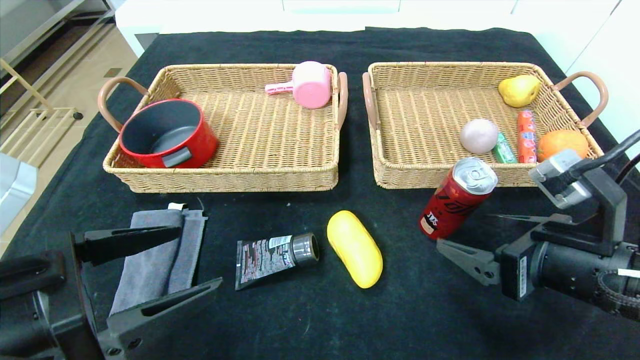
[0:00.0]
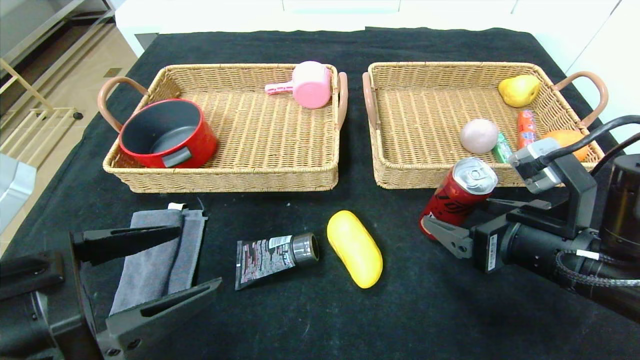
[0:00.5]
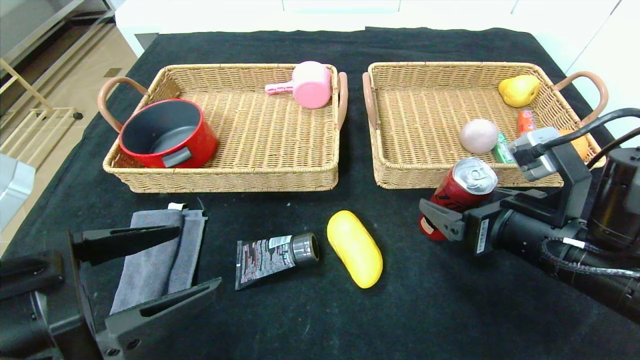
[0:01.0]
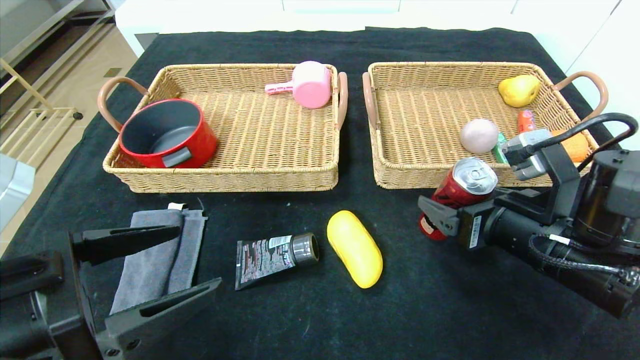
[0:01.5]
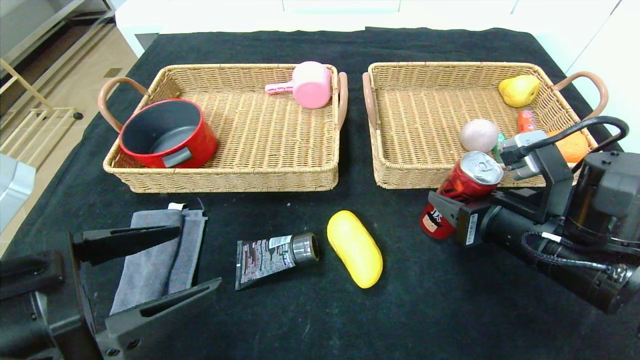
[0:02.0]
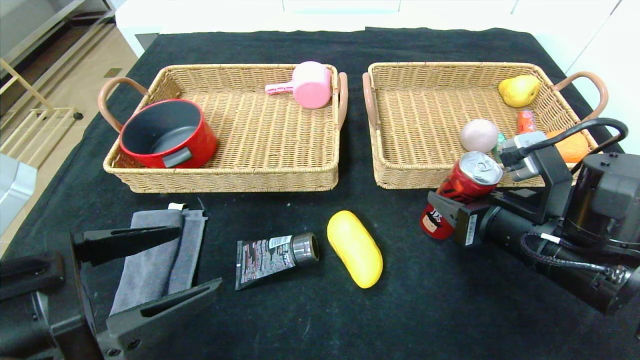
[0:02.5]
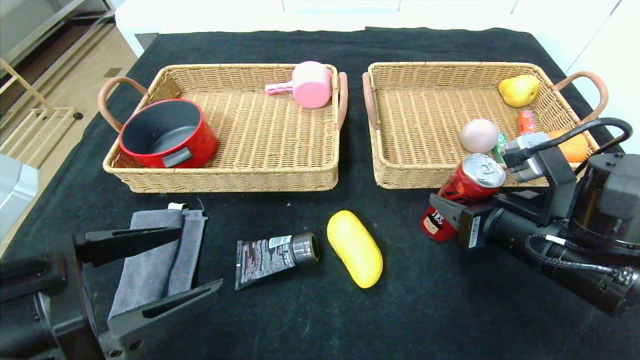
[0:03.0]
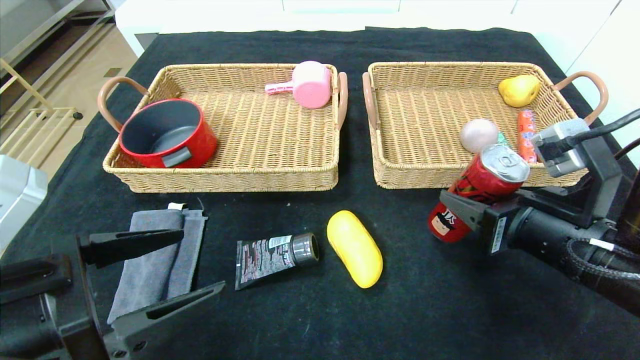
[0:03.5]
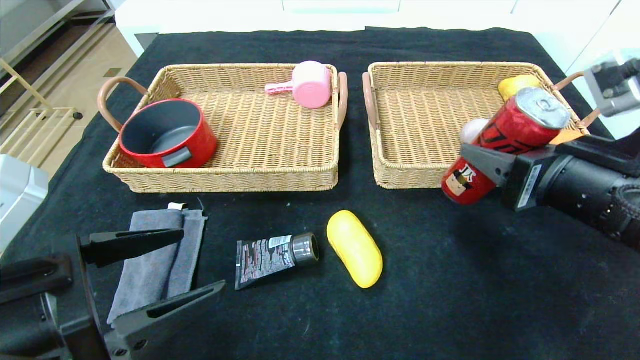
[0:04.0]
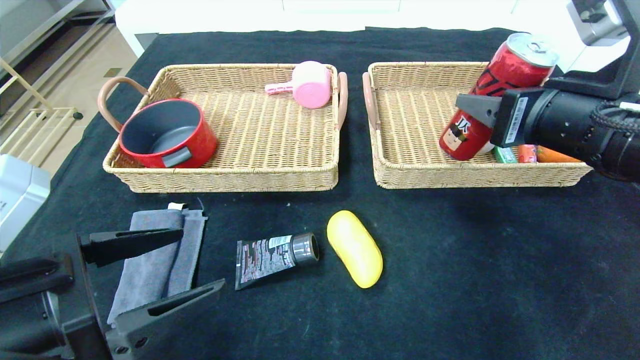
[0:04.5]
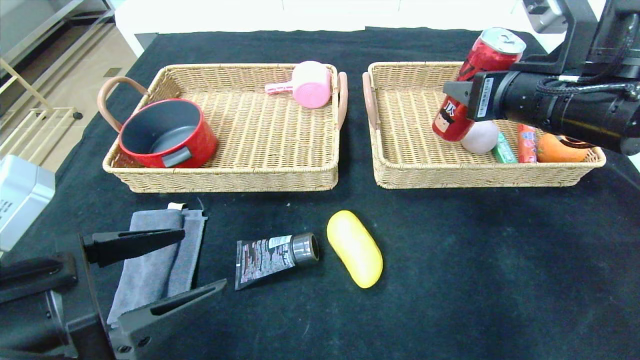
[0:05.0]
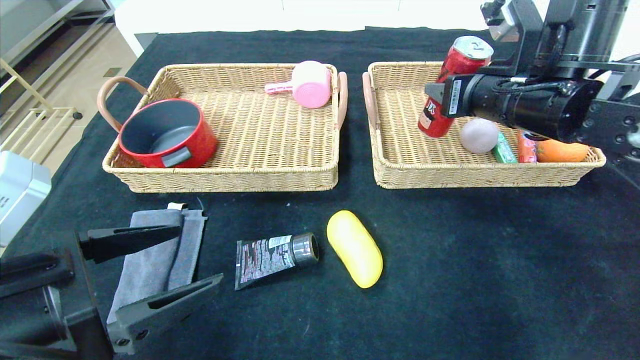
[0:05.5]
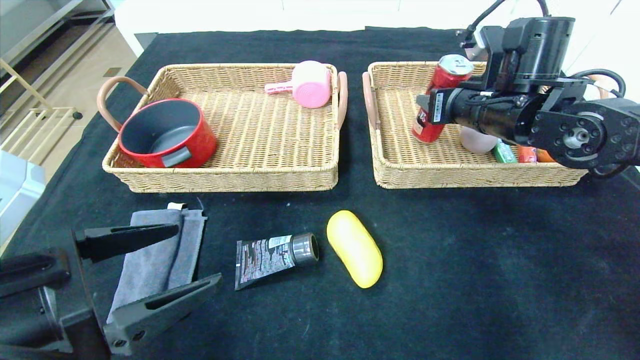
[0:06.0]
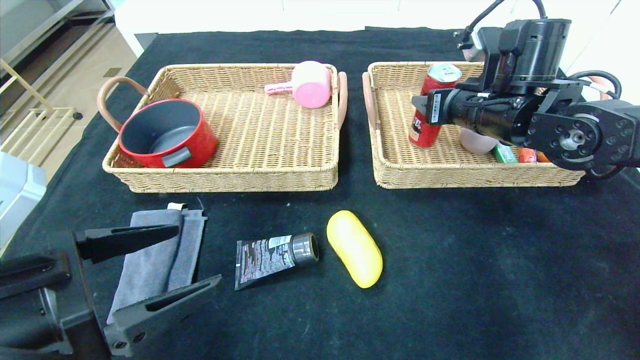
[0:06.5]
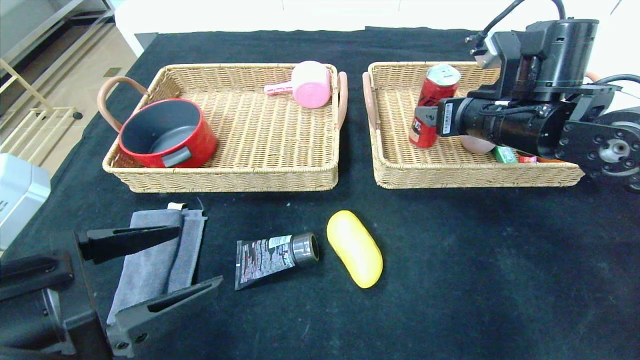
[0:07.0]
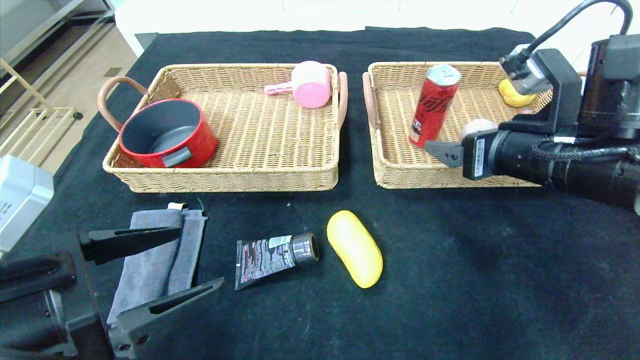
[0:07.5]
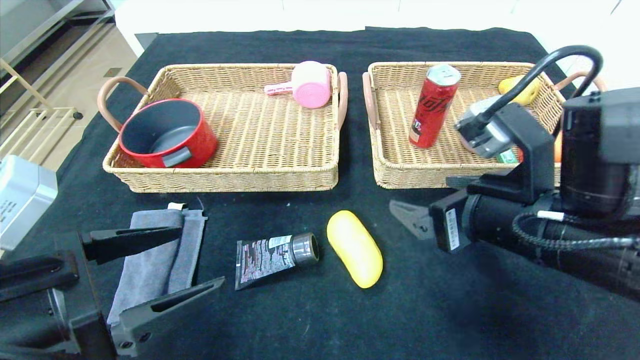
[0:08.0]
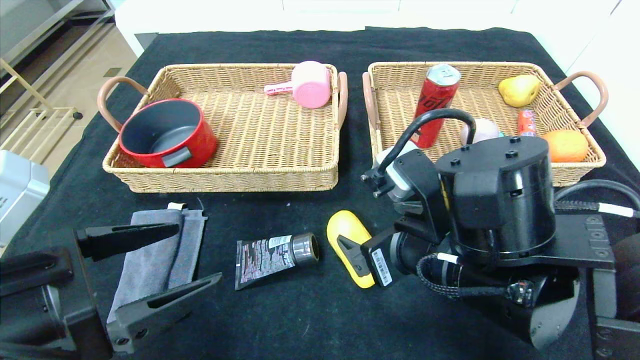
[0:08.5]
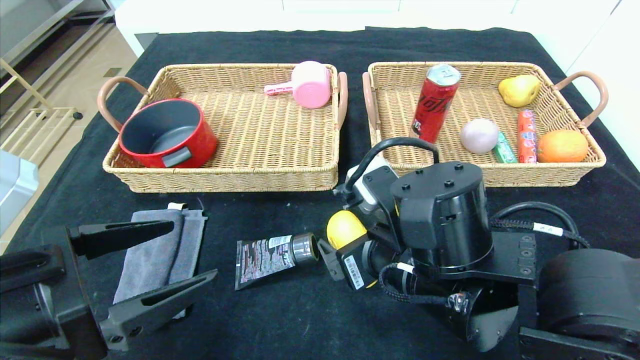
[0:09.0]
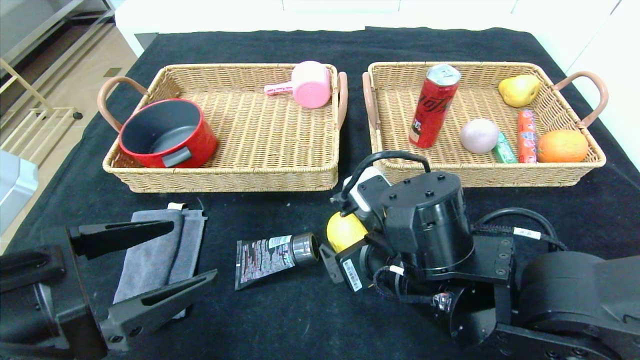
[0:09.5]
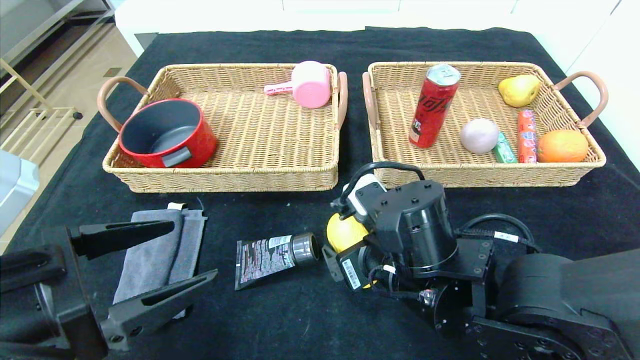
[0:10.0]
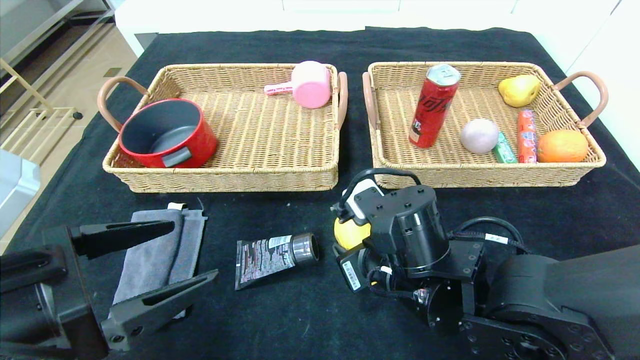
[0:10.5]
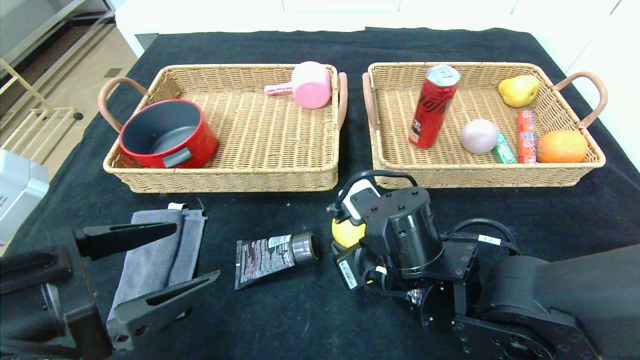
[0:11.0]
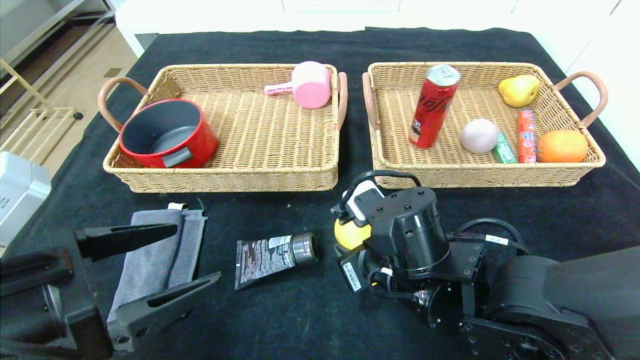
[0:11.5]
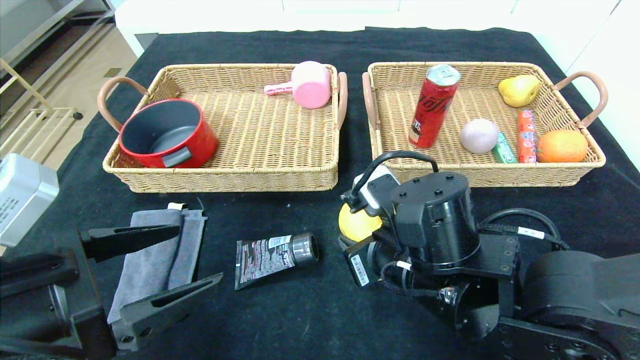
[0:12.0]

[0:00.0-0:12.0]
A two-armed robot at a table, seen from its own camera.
Step, 0:00.0 to 0:07.0: Grasp the canned cola and put it in the right basket.
0:00.0 to 0:02.0: The right gripper shifts by about 5 cm, and closes its fingers.
0:02.0 to 0:04.0: The right gripper heads upward, covering about 5 cm.
0:04.0 to 0:06.0: The right gripper goes some 20 cm forward.
0:06.0 to 0:08.0: The right gripper goes approximately 15 cm backward, and opens.
0:08.0 to 0:10.0: The right gripper is displaced to the left and downward by some 10 cm.
0:10.0 to 0:12.0: The right gripper closes its fingers.

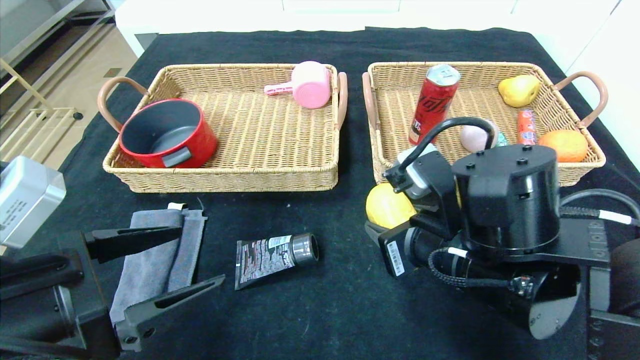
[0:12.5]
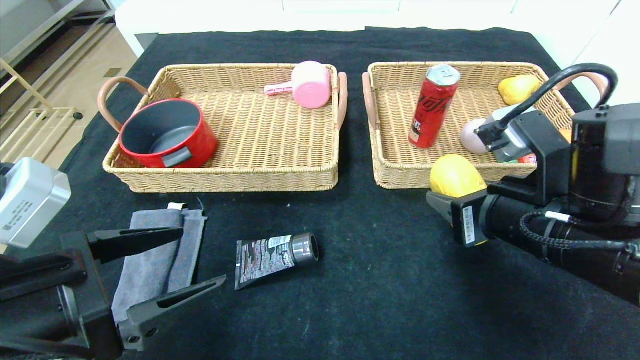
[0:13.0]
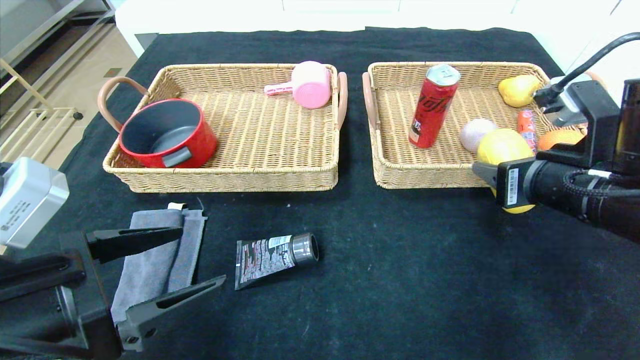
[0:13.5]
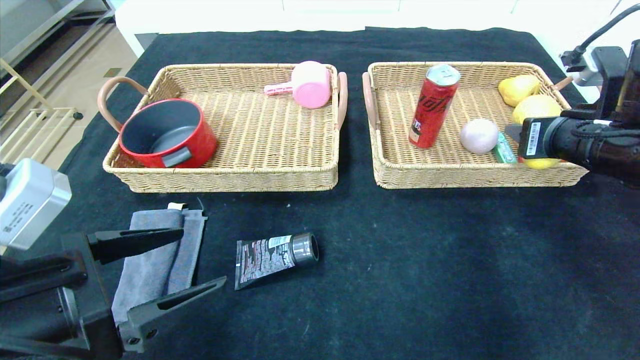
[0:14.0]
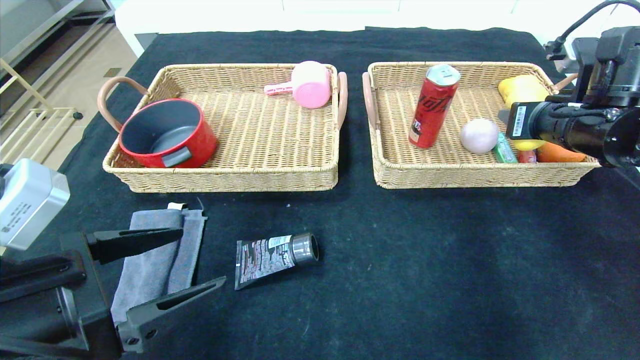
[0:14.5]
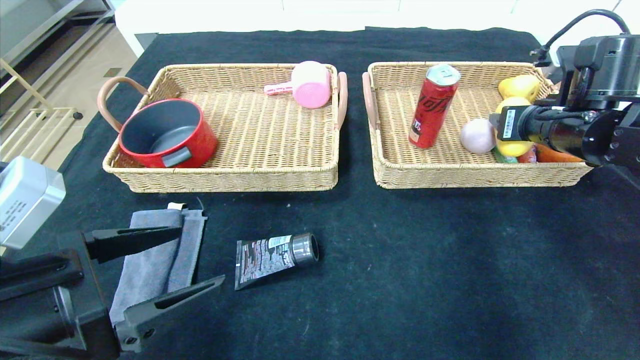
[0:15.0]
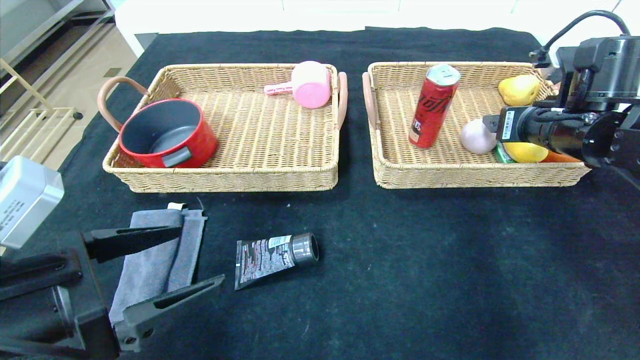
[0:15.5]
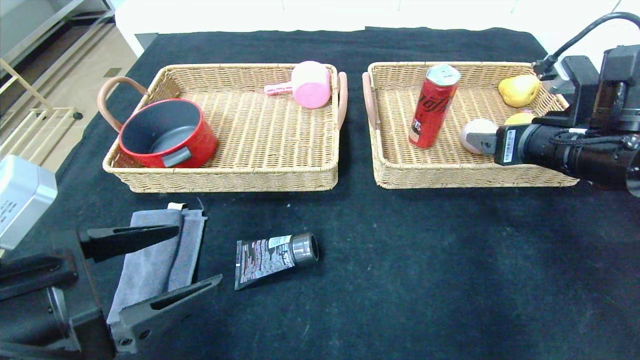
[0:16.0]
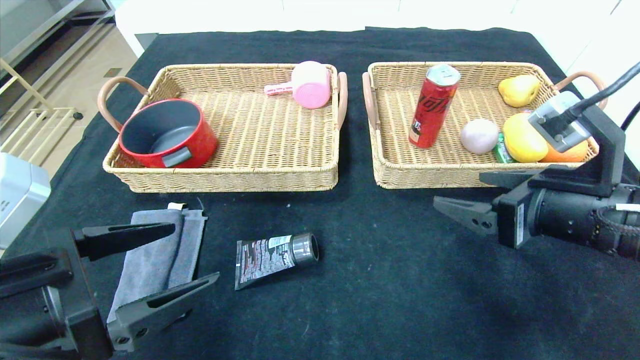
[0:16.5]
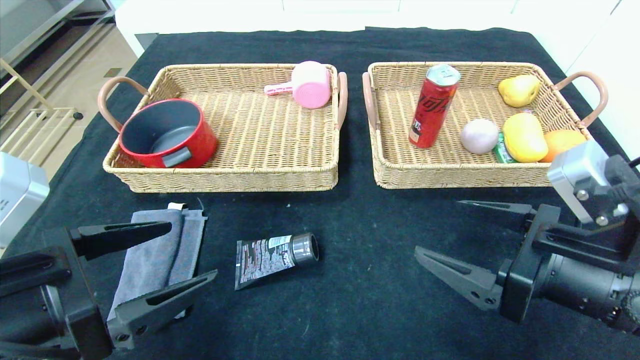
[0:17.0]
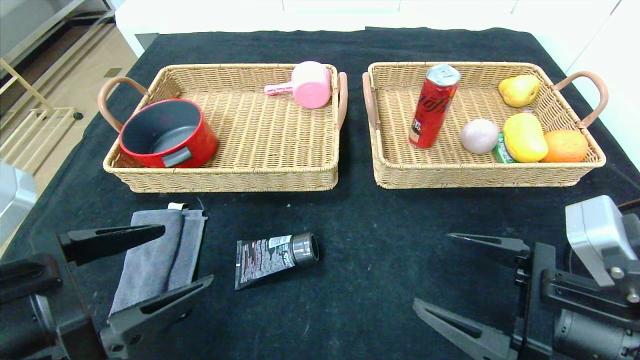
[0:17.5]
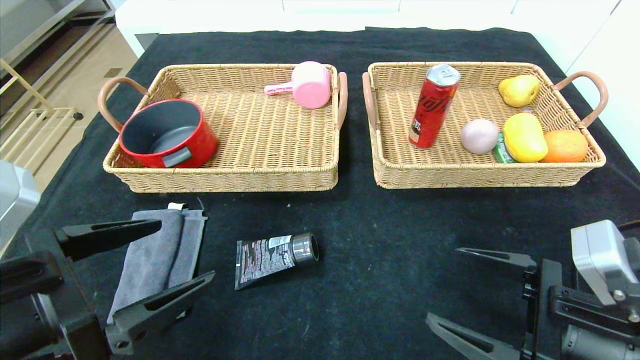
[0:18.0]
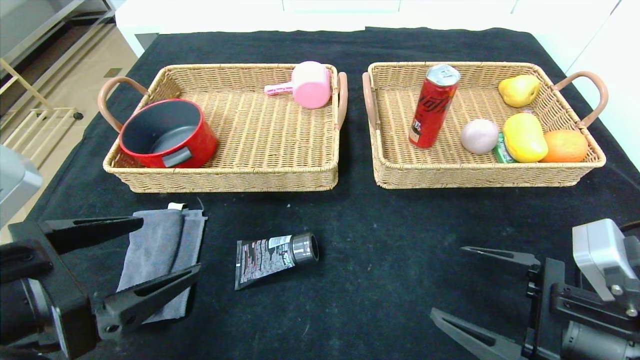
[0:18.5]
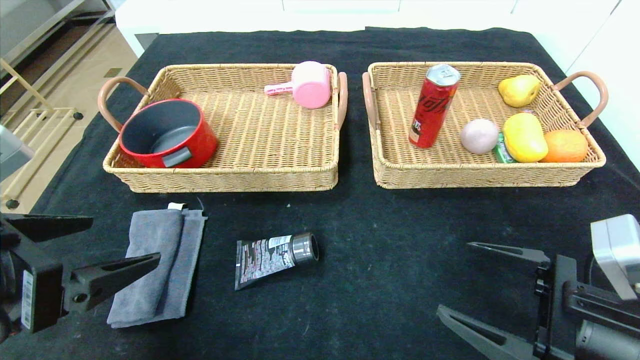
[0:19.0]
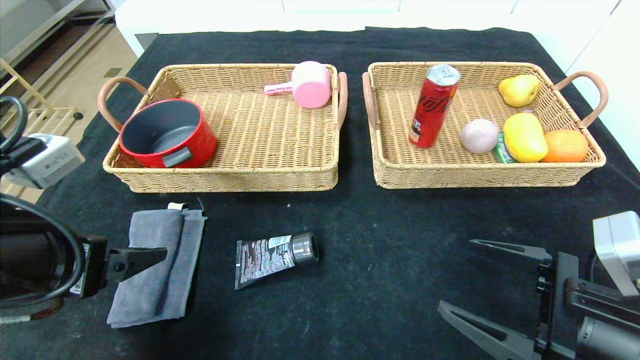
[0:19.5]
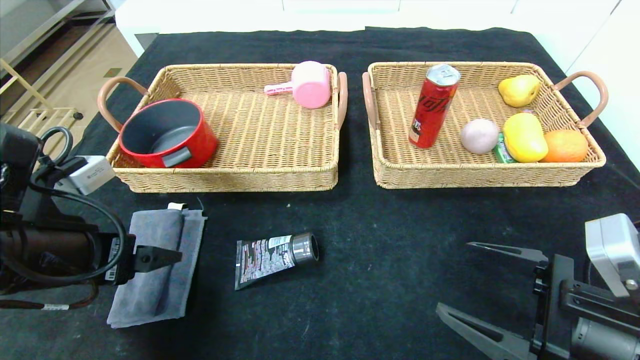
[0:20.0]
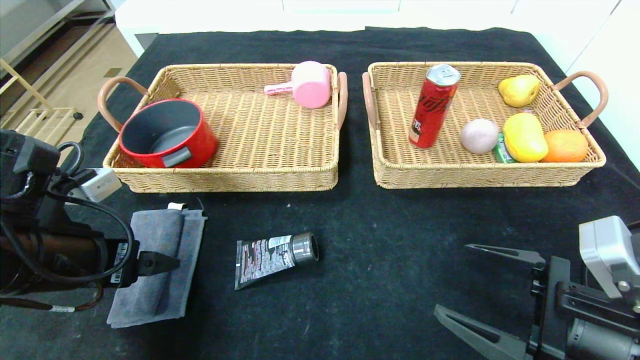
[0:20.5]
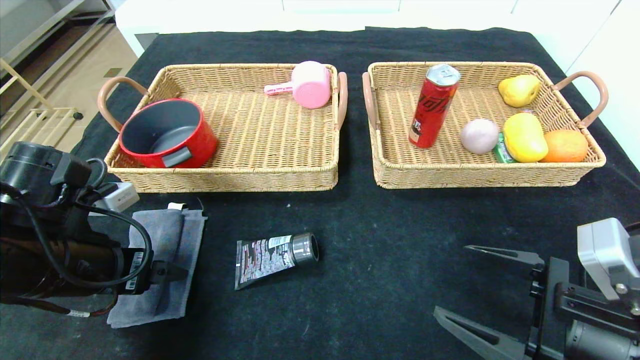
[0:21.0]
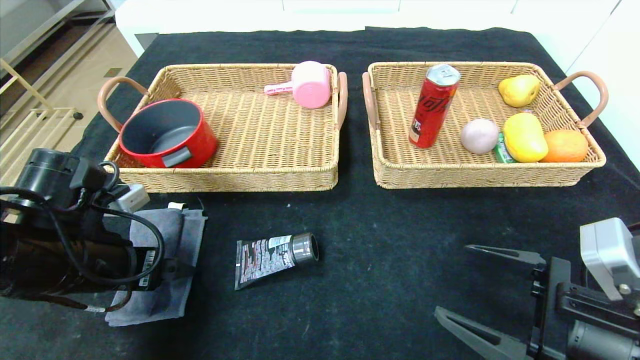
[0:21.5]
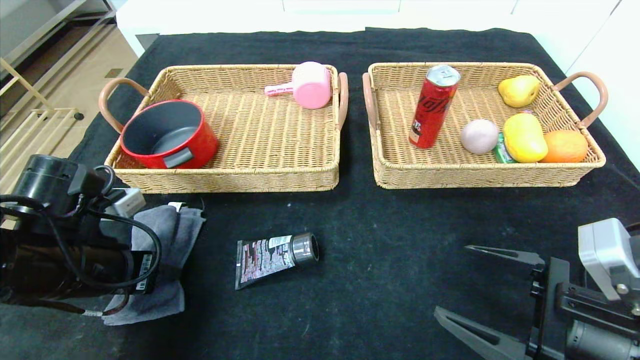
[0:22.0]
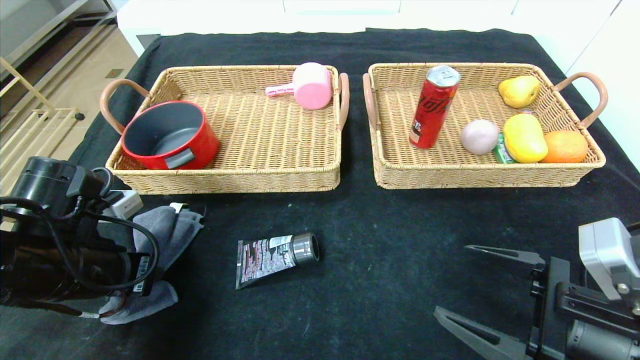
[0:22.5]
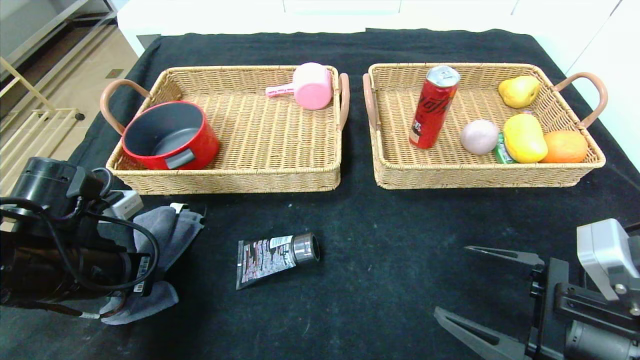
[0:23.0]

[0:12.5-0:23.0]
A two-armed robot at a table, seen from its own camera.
Step, 0:12.5 to 0:15.0: Grasp the mango and put it in the right basket.
0:12.5 to 0:14.5: The right gripper shifts roughly 20 cm to the right, forward and upward.
0:14.5 to 0:16.5: The right gripper is displaced backward and to the left by some 15 cm, and opens its fingers.
0:16.5 to 0:19.0: The right gripper is displaced downward and backward by about 10 cm.
0:19.0 to 0:21.0: The left gripper is displaced forward and downward by about 10 cm.
0:21.0 to 0:23.0: The left gripper closes.
